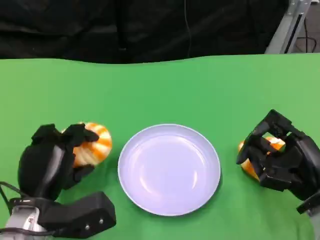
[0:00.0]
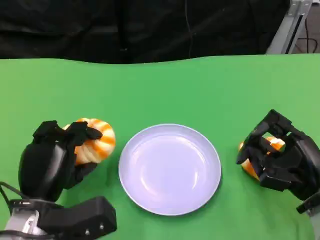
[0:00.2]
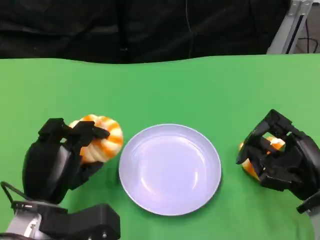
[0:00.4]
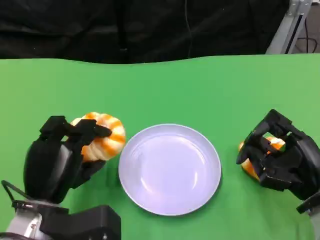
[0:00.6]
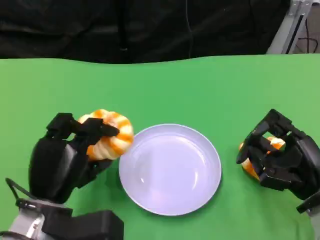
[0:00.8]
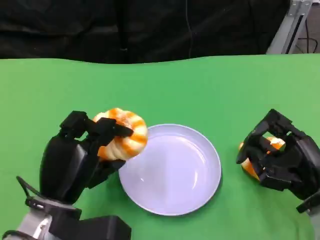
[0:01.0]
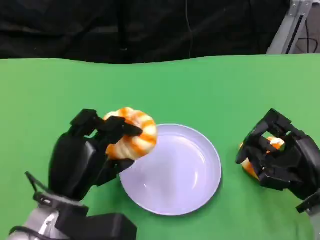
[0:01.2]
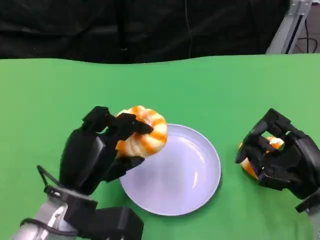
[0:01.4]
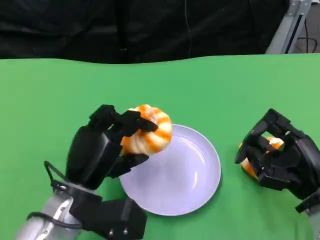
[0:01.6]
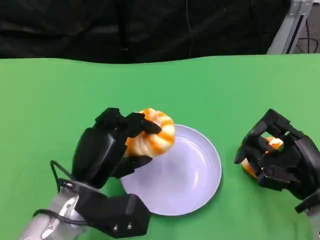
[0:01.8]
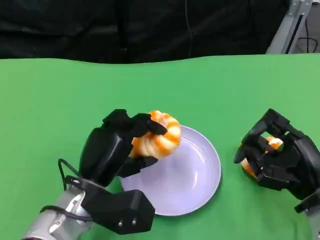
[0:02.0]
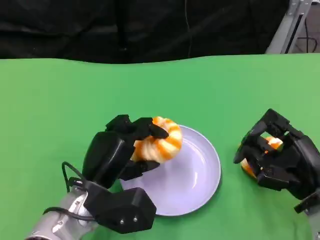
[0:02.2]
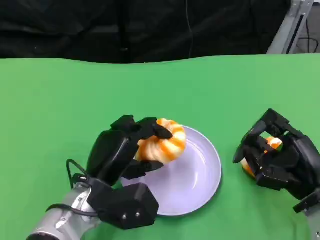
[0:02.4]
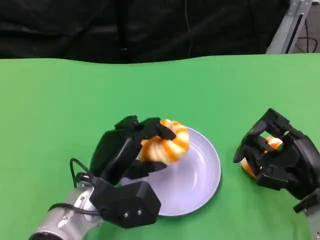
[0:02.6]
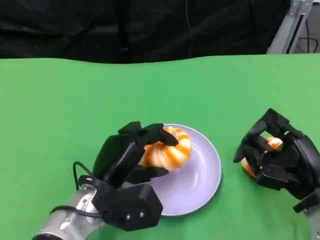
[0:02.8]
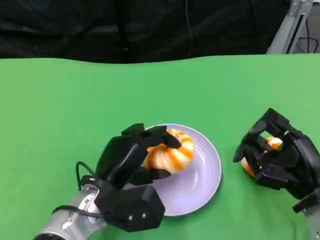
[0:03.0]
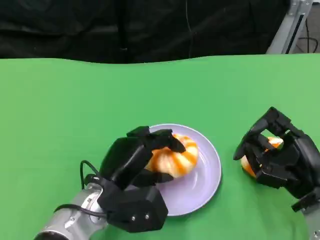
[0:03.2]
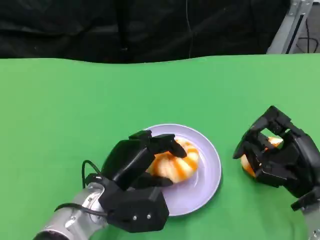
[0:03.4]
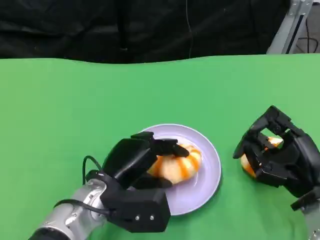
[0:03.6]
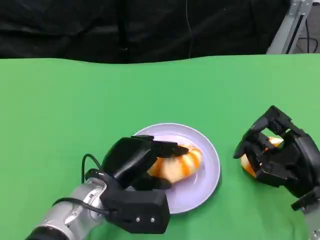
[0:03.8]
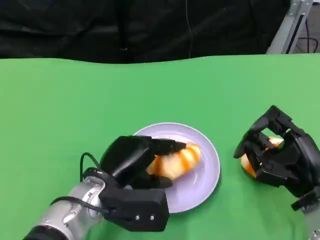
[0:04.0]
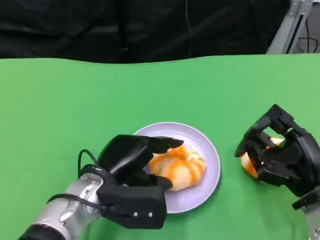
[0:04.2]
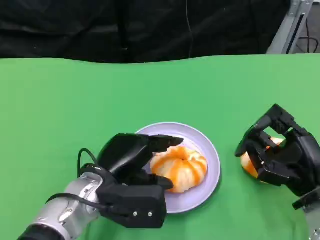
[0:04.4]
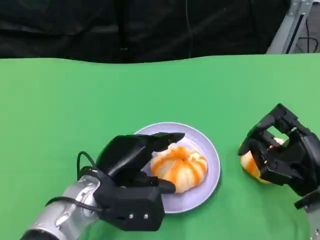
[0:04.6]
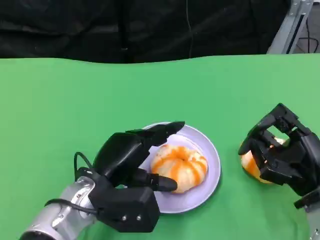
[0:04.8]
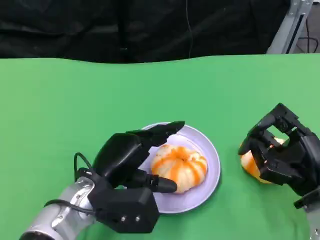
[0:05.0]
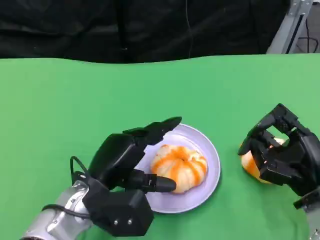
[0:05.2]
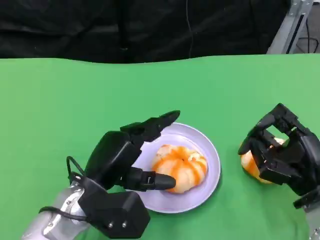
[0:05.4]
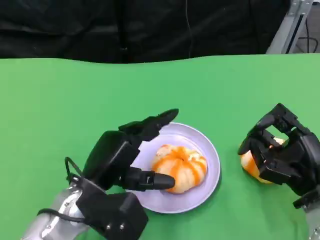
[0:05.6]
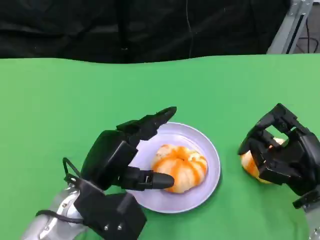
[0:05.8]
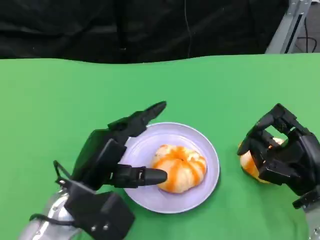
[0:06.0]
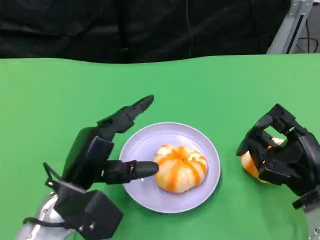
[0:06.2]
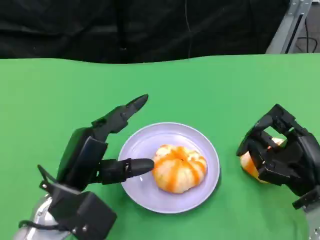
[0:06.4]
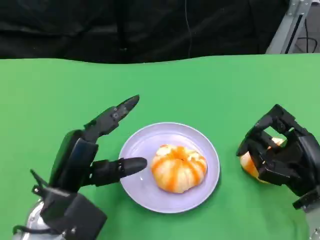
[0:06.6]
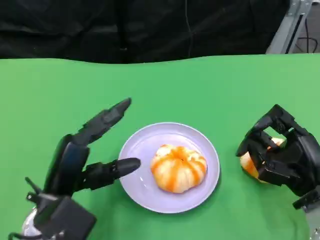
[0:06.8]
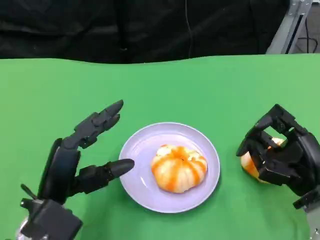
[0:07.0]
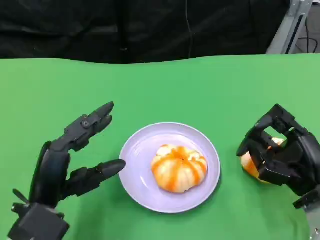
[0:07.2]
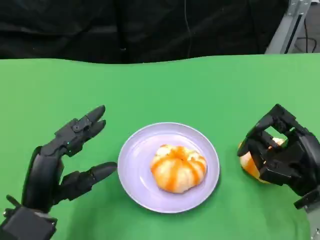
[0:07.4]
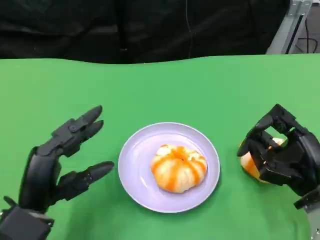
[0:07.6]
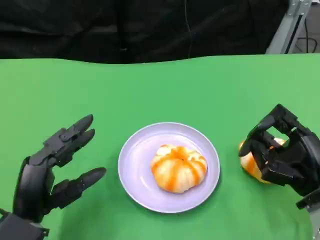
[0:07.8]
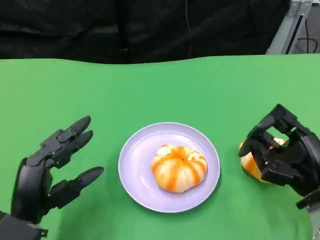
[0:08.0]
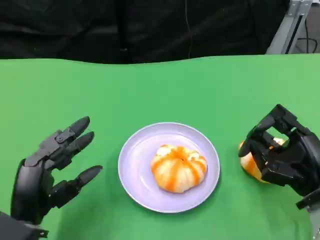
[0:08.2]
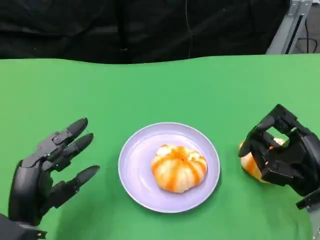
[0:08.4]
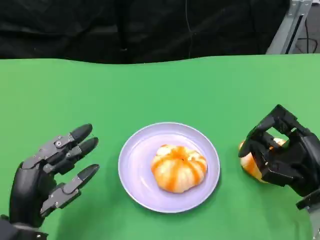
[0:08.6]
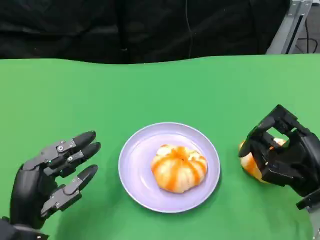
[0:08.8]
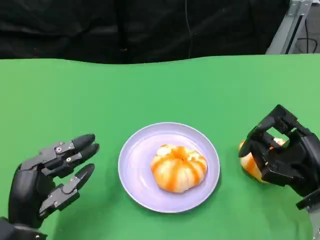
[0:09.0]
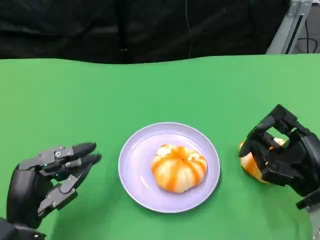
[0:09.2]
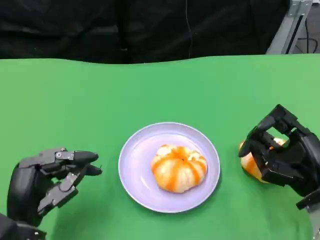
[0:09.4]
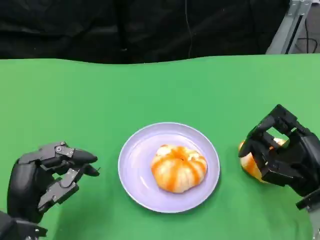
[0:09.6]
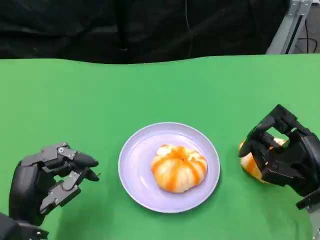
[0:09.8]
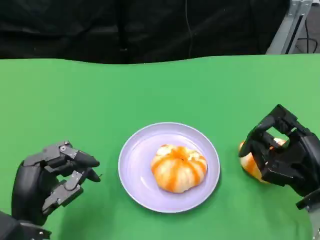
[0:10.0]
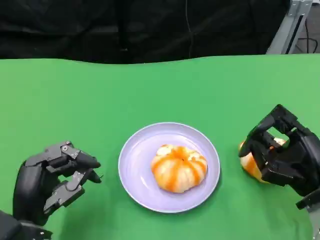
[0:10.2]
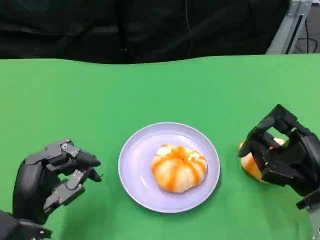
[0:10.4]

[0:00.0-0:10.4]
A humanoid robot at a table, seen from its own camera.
Task of the whole recording: Grasp the bread from the table and place it into the plate.
0:00.0 to 0:01.4: The left hand ends up about 5 cm from where it was.
0:03.0 to 0:04.4: The hands move only a little.
0:06.0 to 0:07.4: The left hand goes approximately 5 cm to the left.
0:07.4 to 0:09.0: There are only small adjustments of the hands.
0:09.0 to 0:10.4: Both hands stay about where they are.

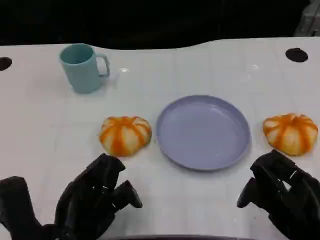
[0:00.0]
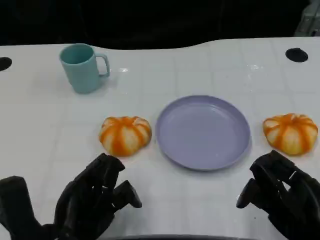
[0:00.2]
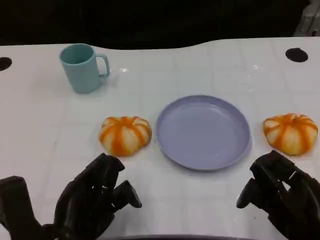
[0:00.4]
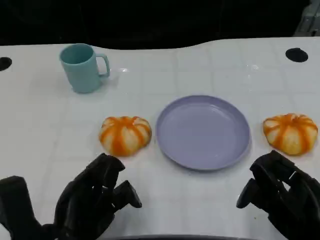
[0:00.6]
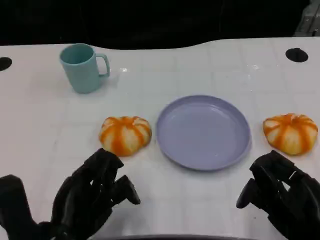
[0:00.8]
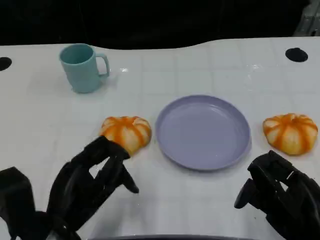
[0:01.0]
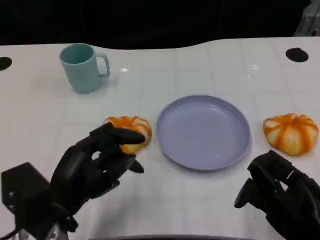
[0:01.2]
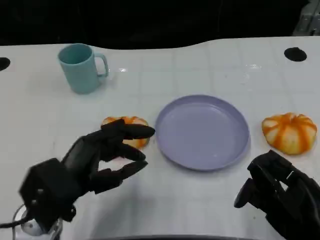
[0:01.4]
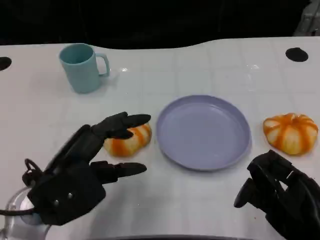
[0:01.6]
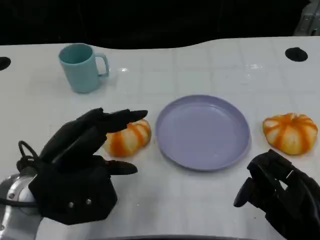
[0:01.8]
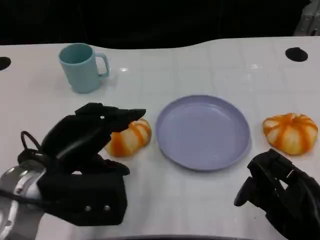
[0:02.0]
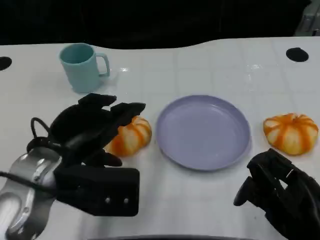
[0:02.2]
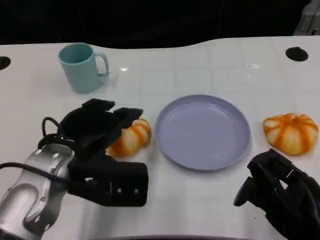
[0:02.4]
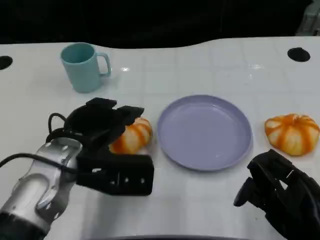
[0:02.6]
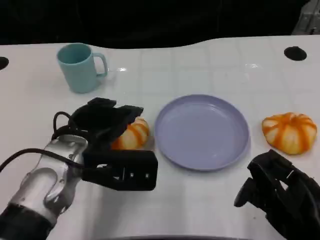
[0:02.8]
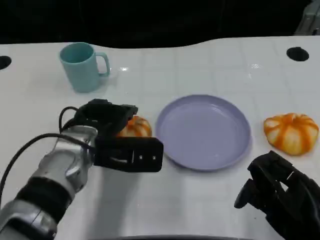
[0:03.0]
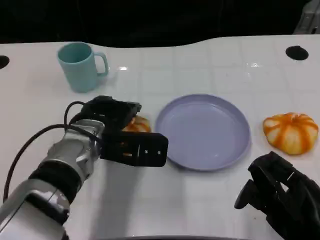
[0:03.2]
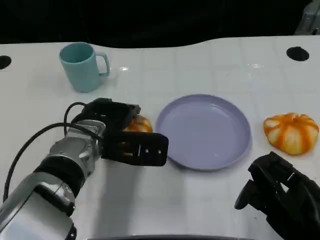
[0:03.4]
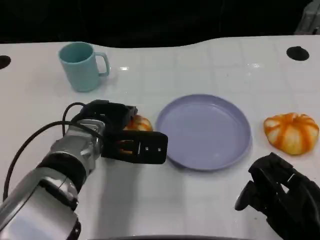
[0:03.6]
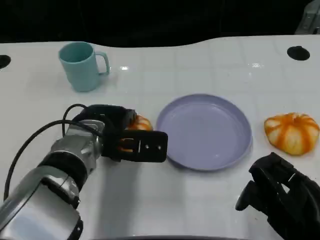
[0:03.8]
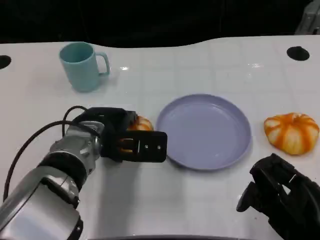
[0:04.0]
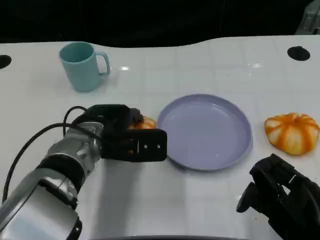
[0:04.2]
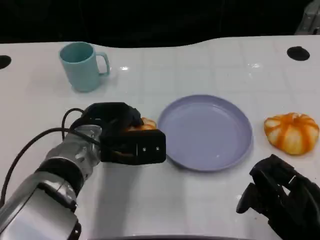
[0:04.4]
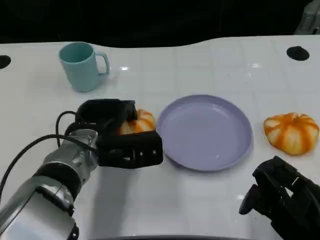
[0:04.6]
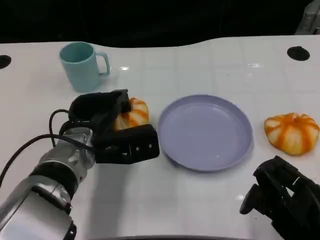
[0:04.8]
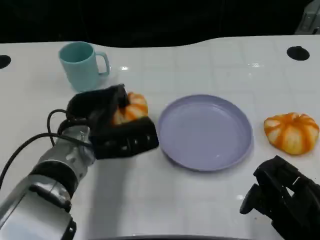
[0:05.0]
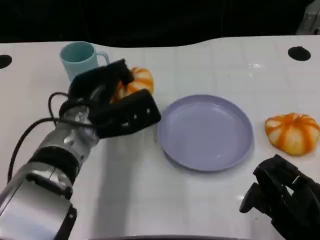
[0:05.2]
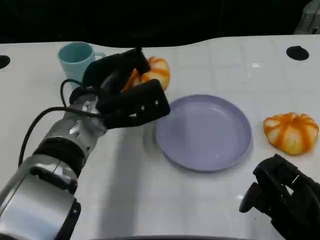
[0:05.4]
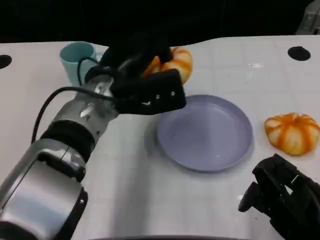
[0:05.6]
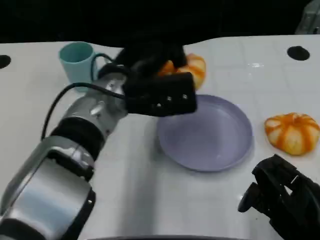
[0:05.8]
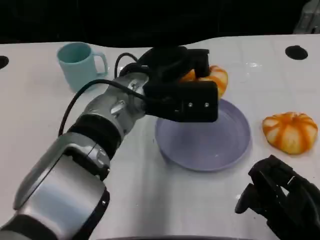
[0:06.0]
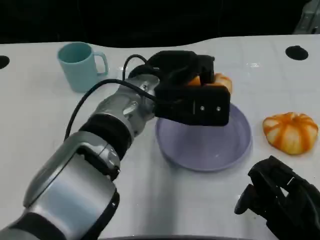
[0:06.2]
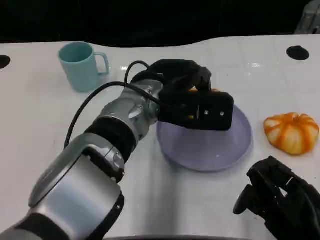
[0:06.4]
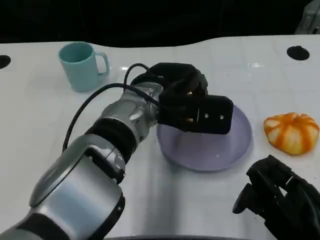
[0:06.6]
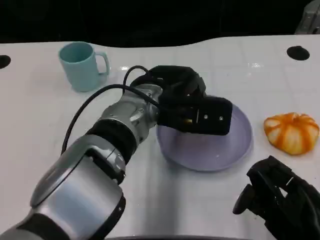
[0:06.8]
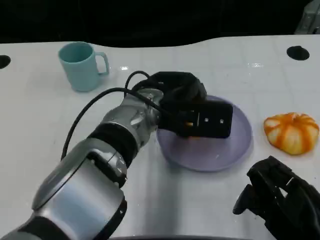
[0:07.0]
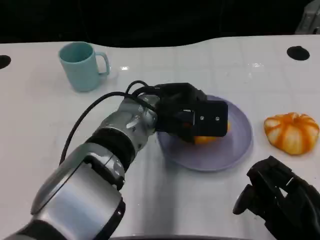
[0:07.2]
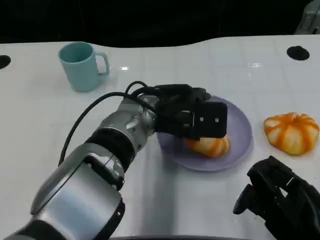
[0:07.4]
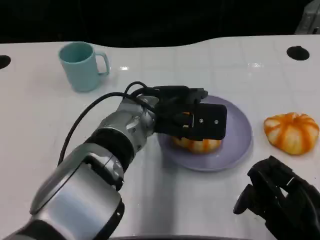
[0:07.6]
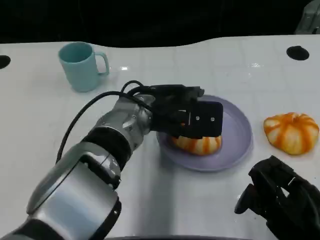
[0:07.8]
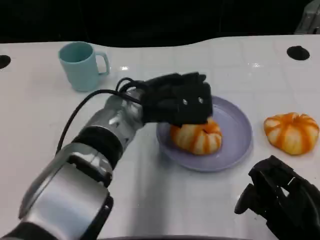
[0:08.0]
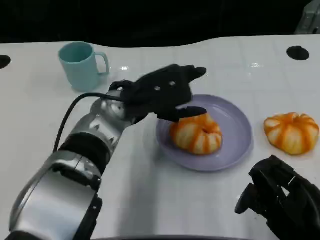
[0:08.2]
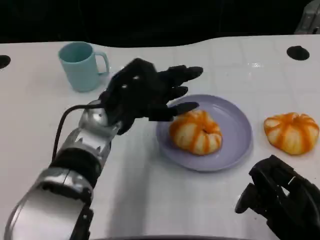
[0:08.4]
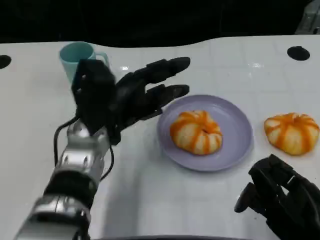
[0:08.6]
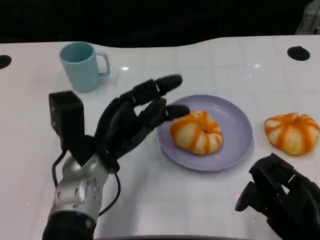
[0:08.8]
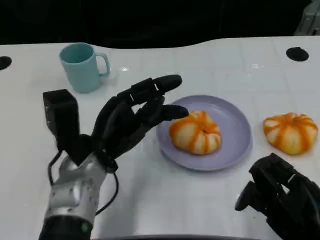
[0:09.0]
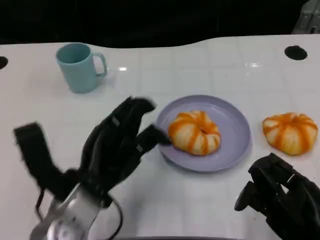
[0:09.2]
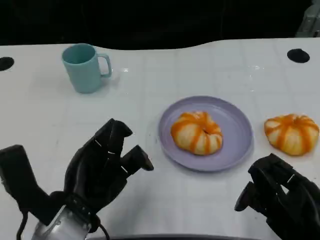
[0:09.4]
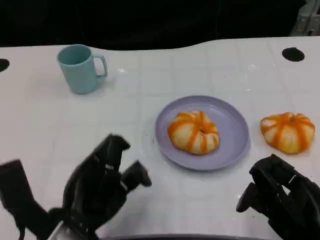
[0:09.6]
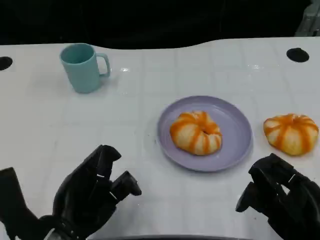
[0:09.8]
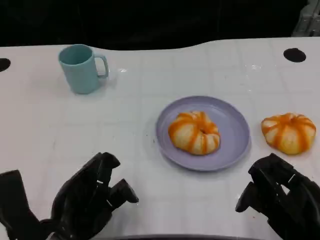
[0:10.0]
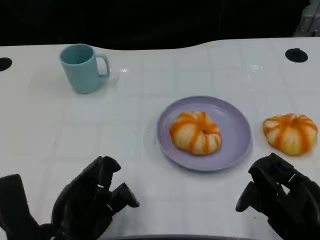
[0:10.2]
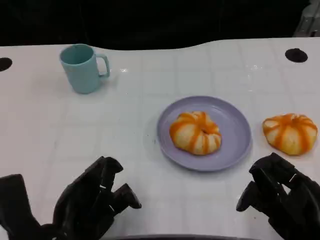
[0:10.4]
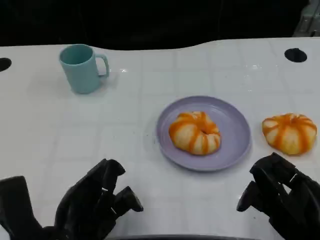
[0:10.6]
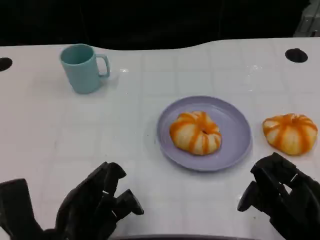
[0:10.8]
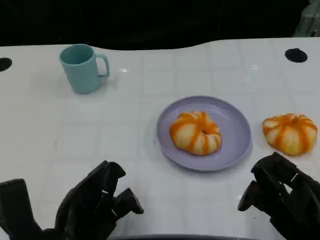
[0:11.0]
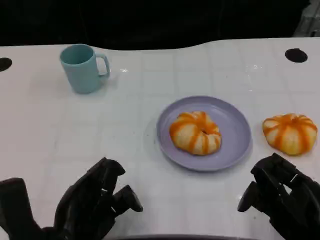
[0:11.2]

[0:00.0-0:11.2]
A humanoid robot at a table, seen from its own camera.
Task of the whole recording: Grasp the bread from the table and place it into the plate.
0:00.0 to 0:01.6: The left hand heads forward, covering about 5 cm.
0:01.6 to 0:03.2: The left hand moves forward and to the right, roughly 10 cm.
0:04.8 to 0:06.4: The left hand moves to the right and upward, about 15 cm.
0:08.0 to 0:09.6: The left hand is displaced backward and to the left by about 20 cm.
0:09.6 to 0:11.2: The hands stay close to where they were, moving slightly.

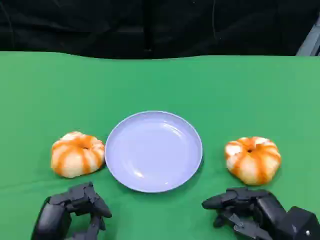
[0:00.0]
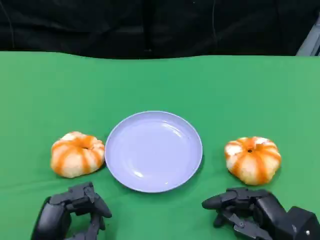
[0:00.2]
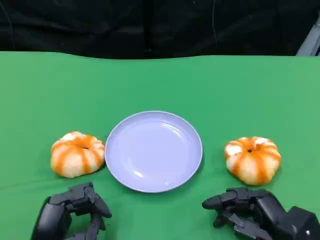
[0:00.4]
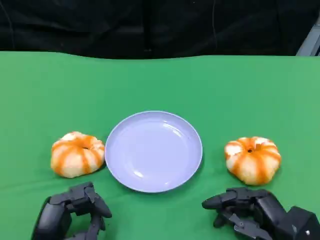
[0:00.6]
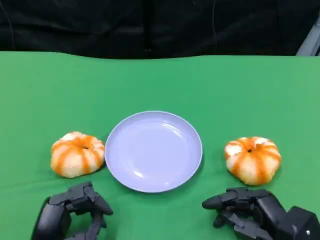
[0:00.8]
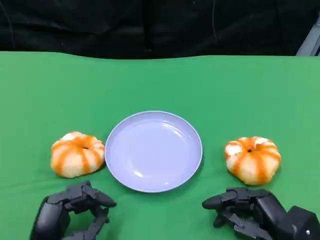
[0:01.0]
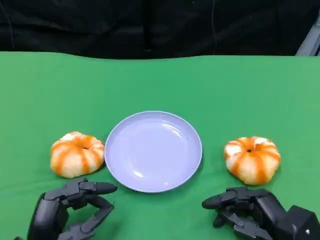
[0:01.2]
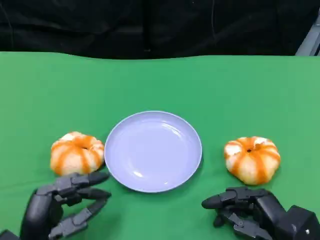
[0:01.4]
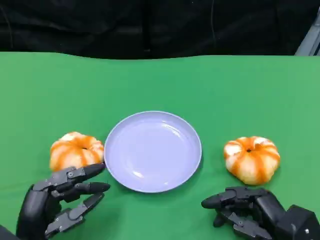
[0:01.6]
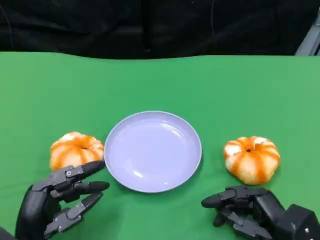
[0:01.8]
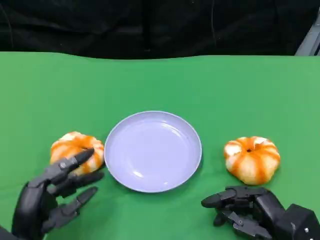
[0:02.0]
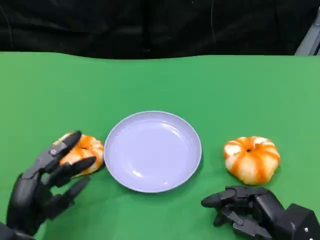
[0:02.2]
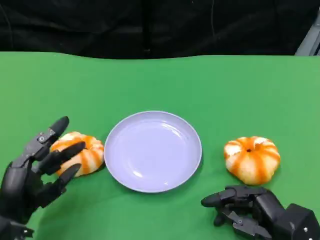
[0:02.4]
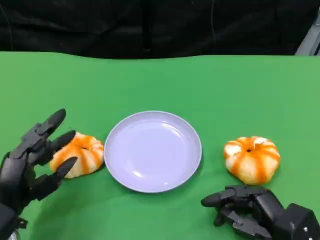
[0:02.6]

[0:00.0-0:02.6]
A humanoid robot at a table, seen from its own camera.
Task of the whole recording: Grasp the bread from the table and place it into the plate.
0:00.0 to 0:01.2: The two hands keep their place.
0:01.2 to 0:02.6: The left hand changes place by approximately 5 cm.
